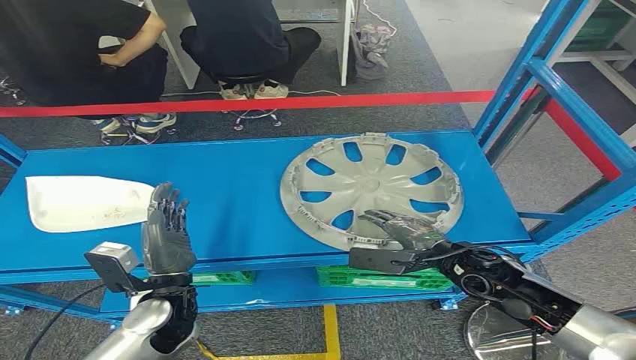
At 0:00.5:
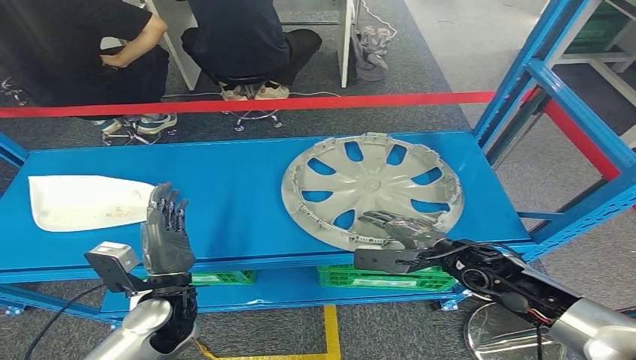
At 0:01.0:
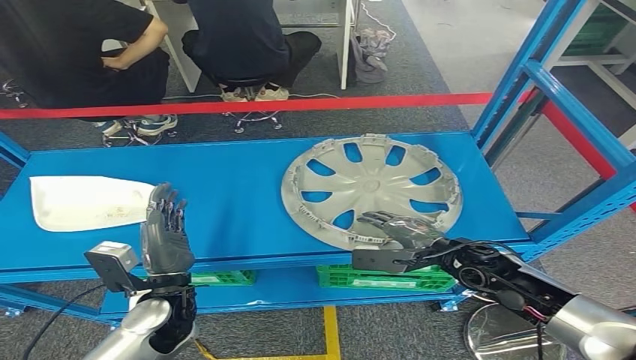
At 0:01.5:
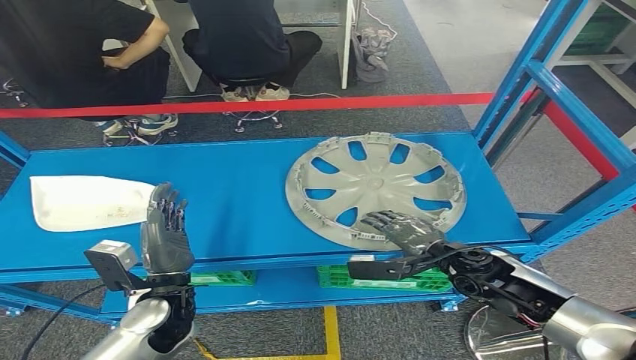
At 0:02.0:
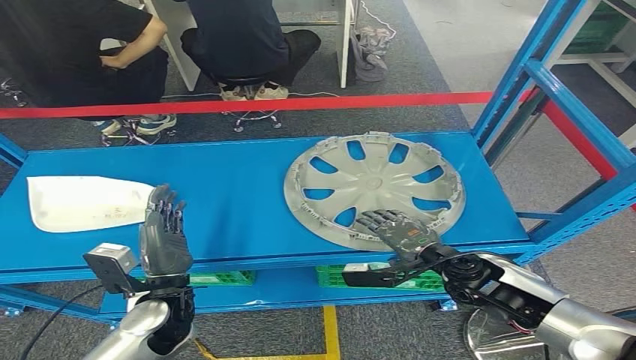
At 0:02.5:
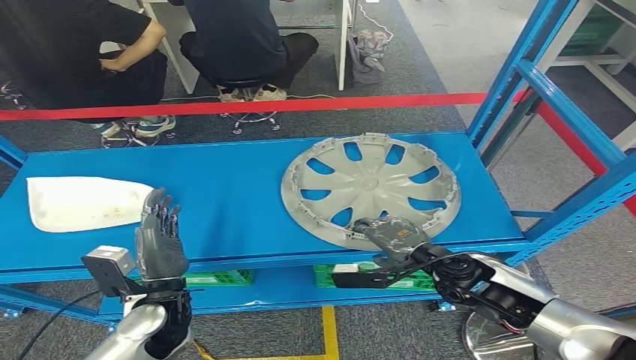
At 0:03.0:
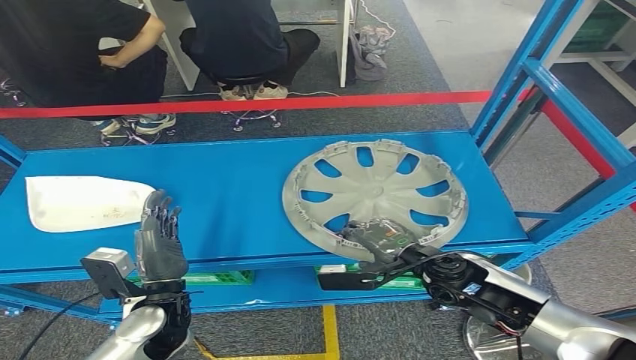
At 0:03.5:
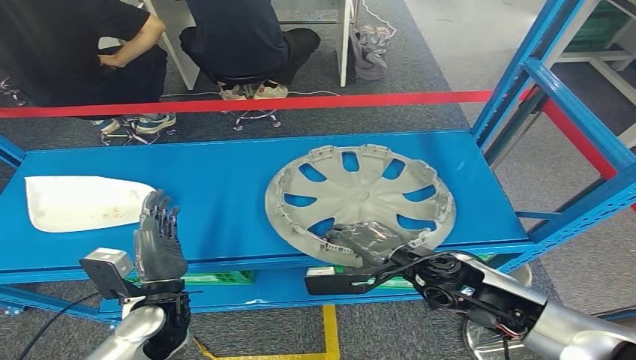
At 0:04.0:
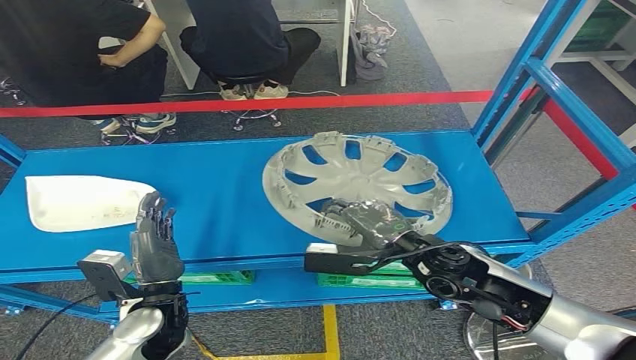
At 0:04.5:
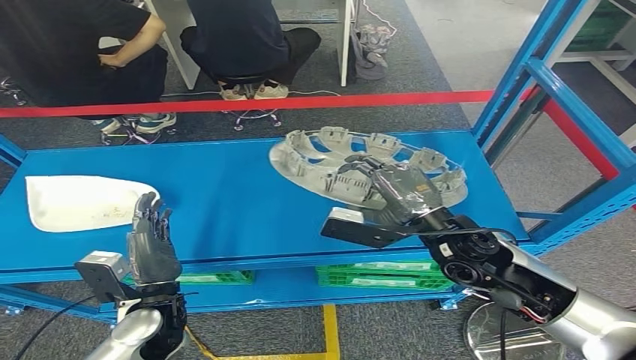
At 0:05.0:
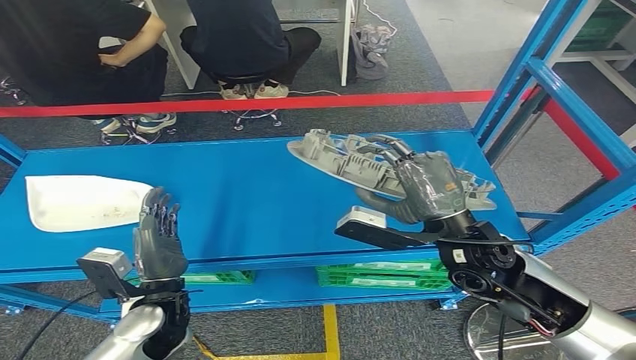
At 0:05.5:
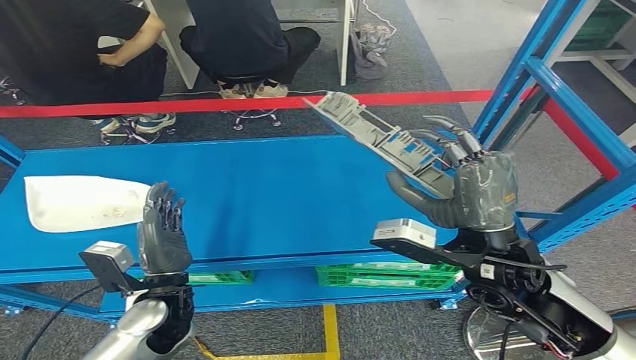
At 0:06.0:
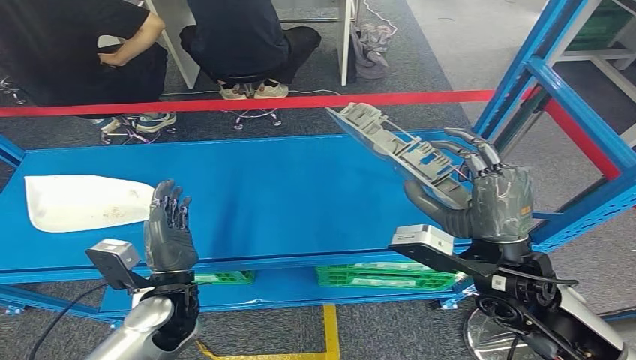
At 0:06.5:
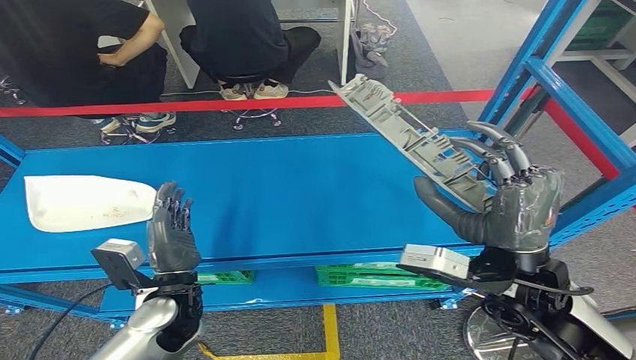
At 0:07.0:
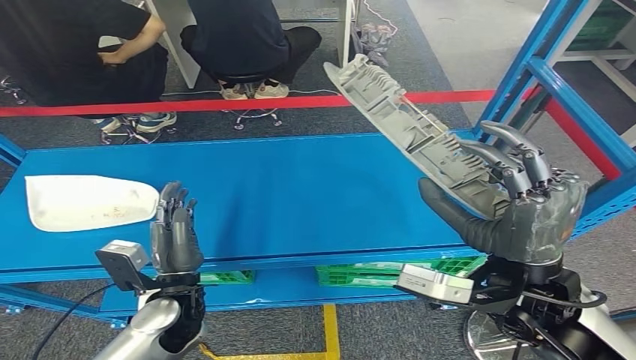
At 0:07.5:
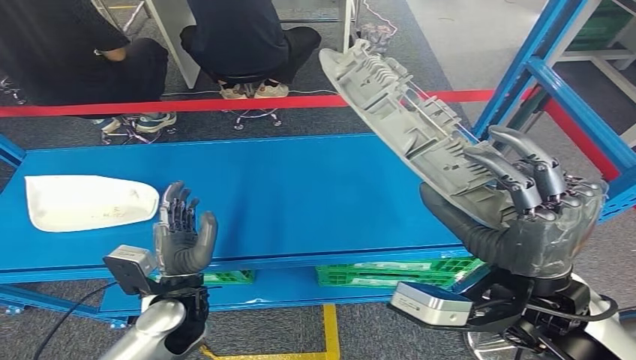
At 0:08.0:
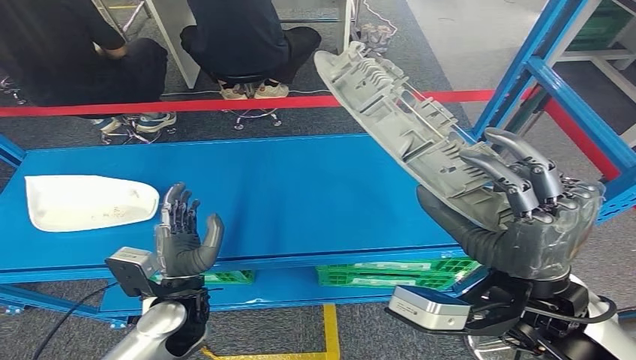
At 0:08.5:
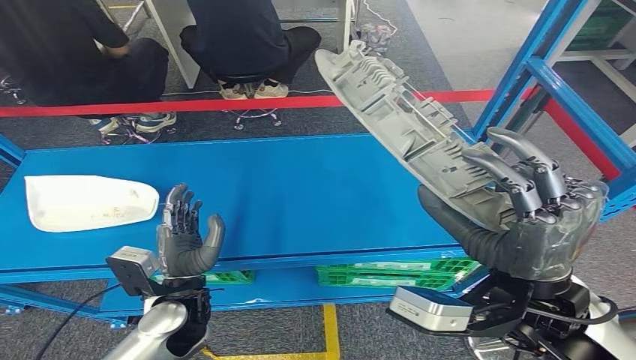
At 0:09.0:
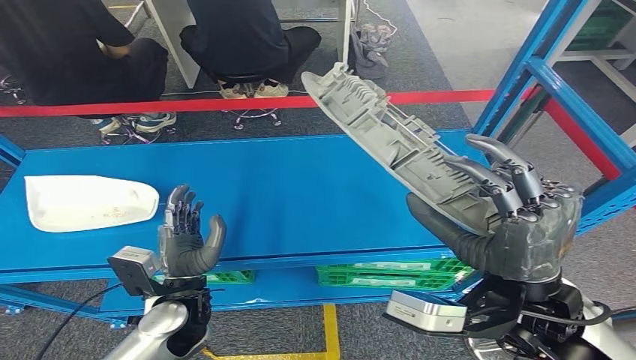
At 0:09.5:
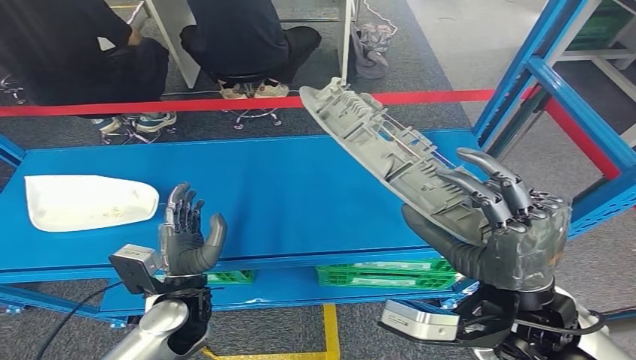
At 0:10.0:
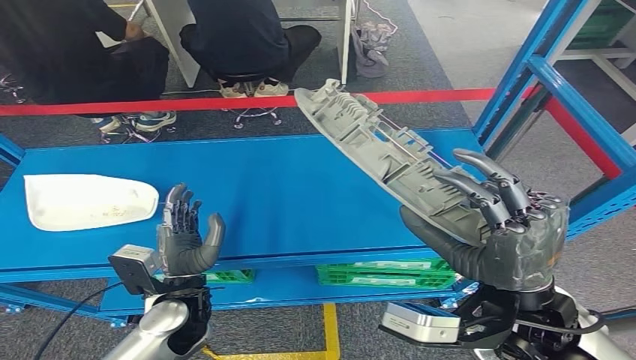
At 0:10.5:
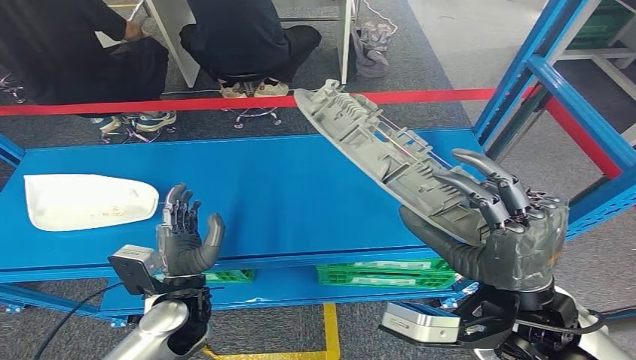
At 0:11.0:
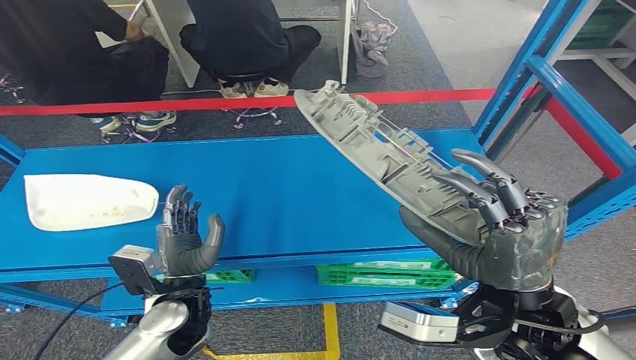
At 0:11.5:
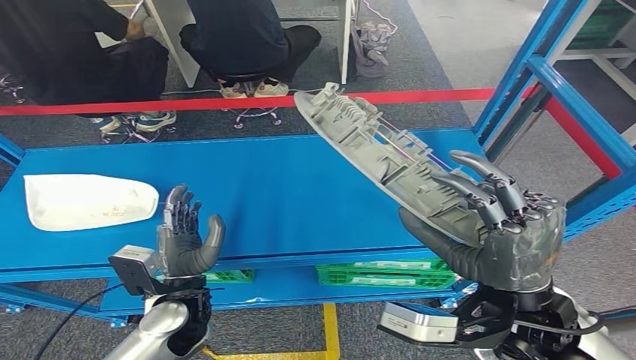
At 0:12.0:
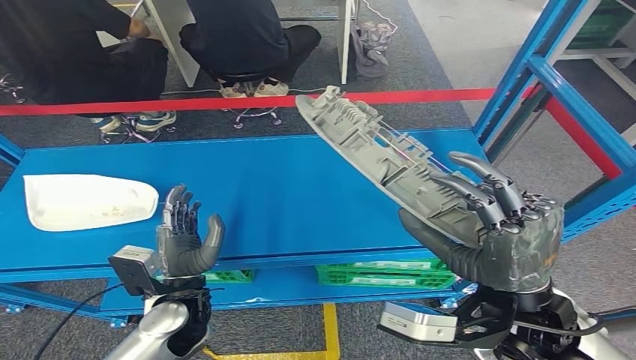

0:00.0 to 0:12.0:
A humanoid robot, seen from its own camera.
Step, 0:00.0 to 0:09.0: Pick up the small parts from the shelf.
0:02.0 to 0:04.0: The right hand heads upward and to the left, covering about 10 cm.
0:08.0 to 0:10.0: The hands move only a little.
0:10.0 to 0:12.0: Both hands stay put.

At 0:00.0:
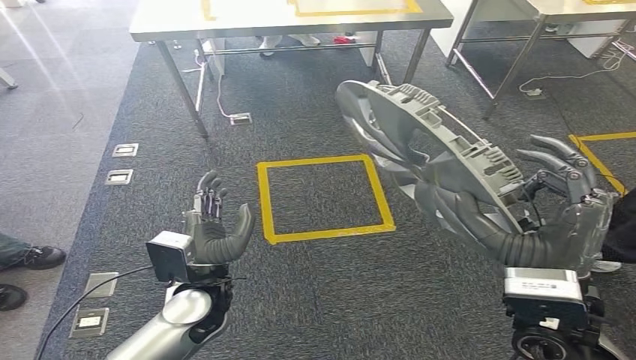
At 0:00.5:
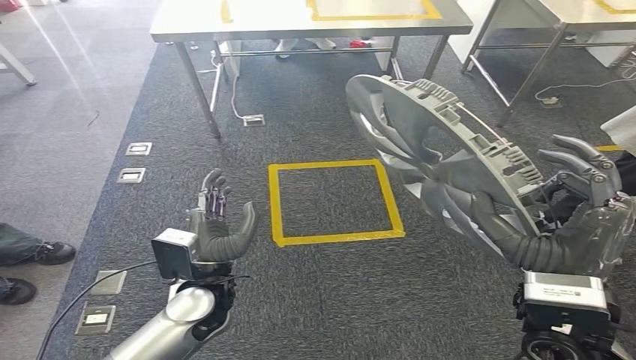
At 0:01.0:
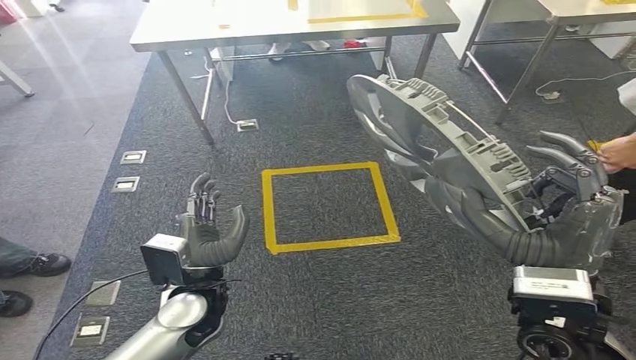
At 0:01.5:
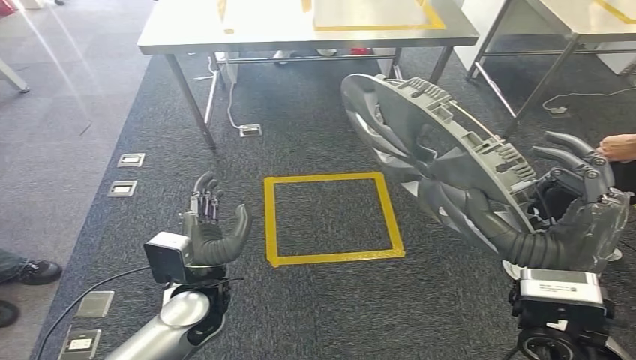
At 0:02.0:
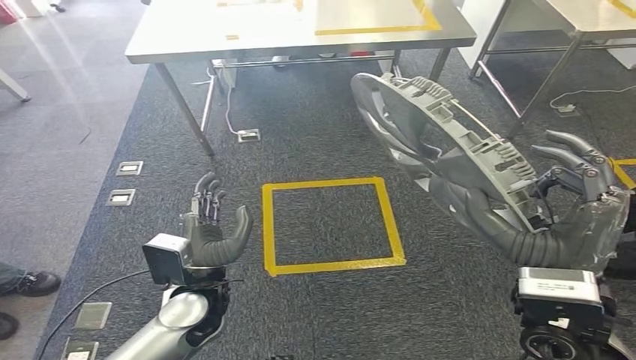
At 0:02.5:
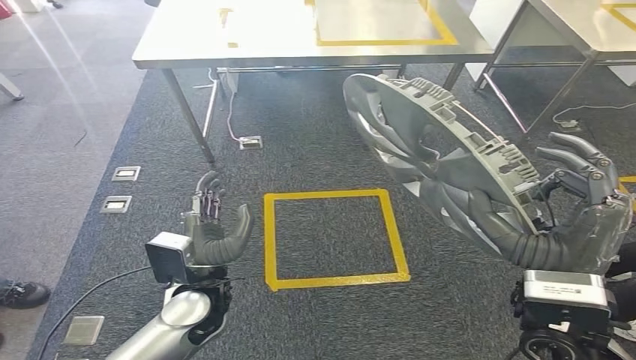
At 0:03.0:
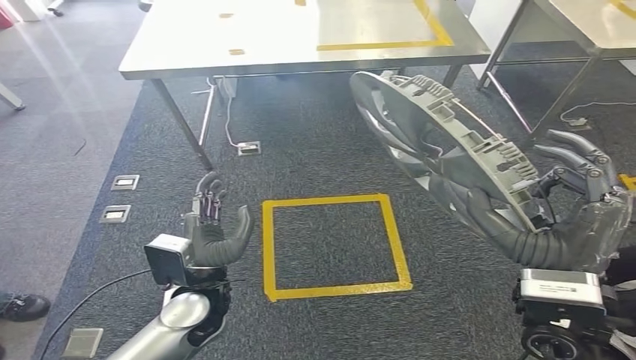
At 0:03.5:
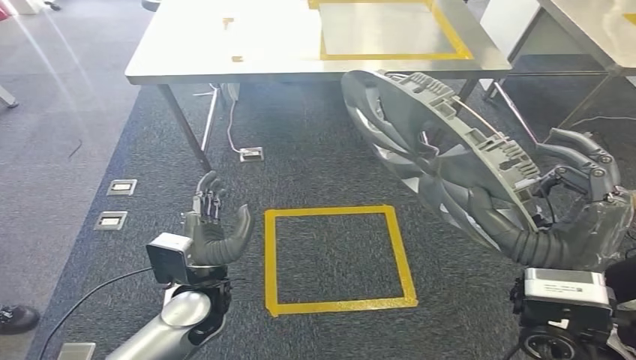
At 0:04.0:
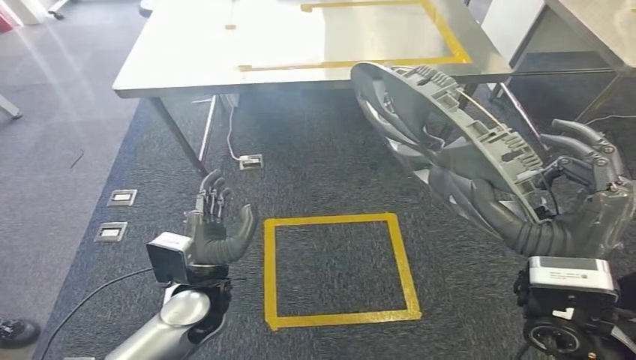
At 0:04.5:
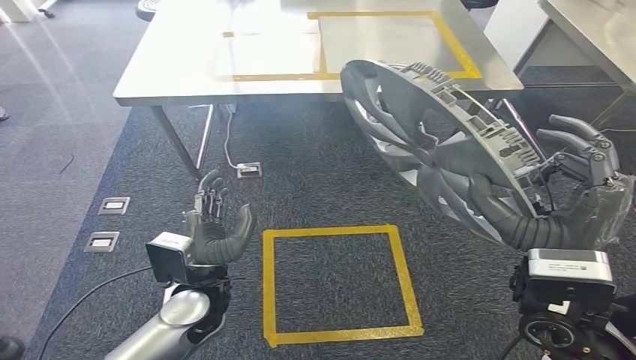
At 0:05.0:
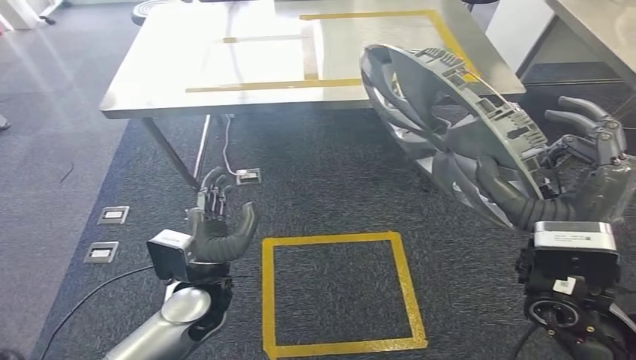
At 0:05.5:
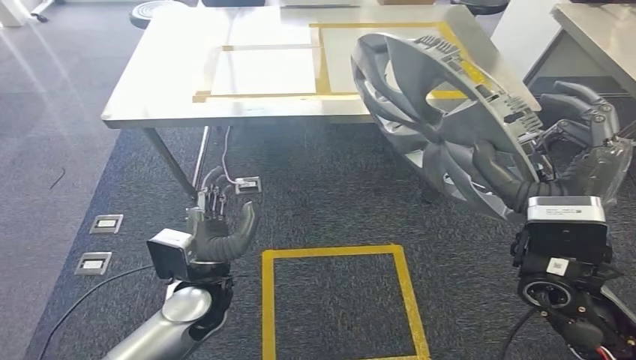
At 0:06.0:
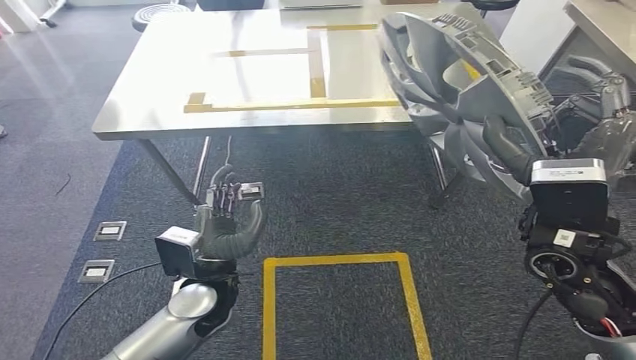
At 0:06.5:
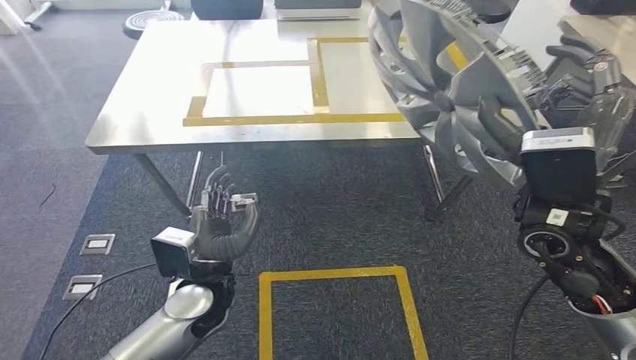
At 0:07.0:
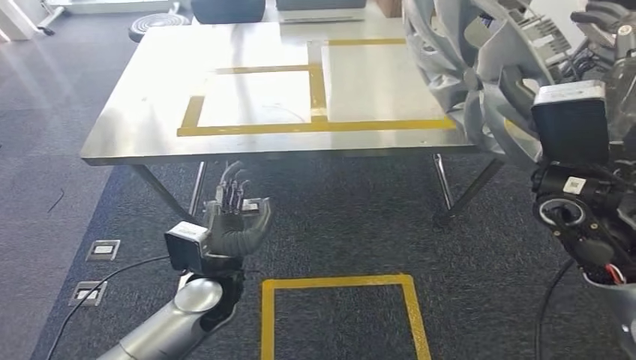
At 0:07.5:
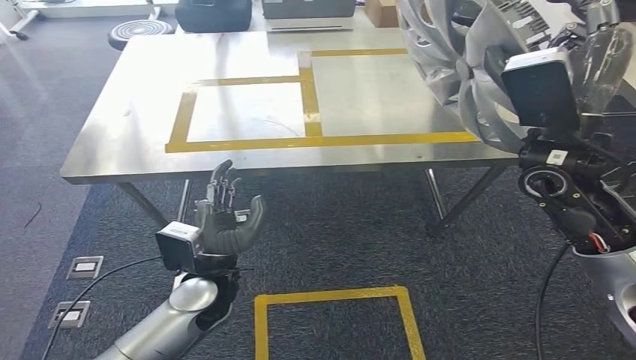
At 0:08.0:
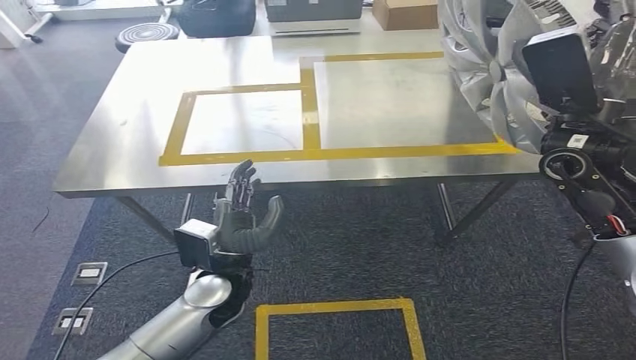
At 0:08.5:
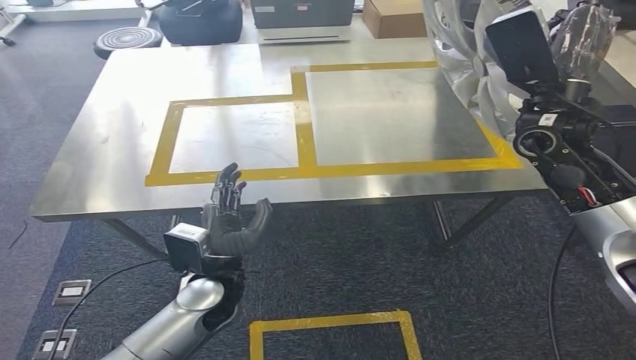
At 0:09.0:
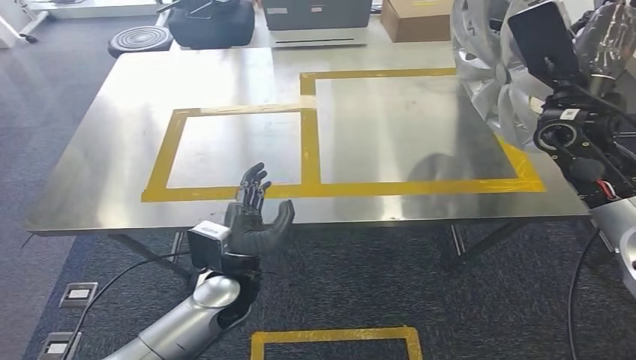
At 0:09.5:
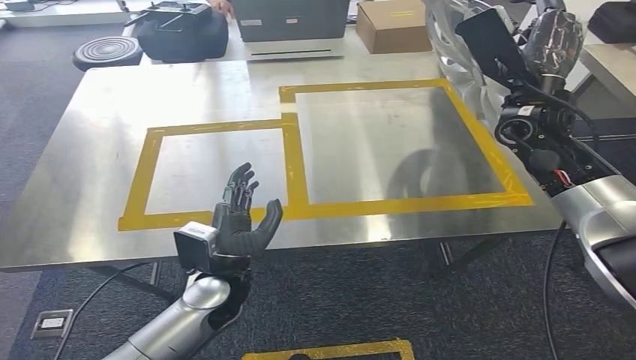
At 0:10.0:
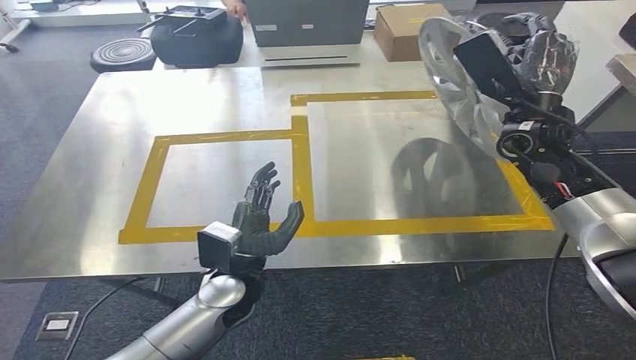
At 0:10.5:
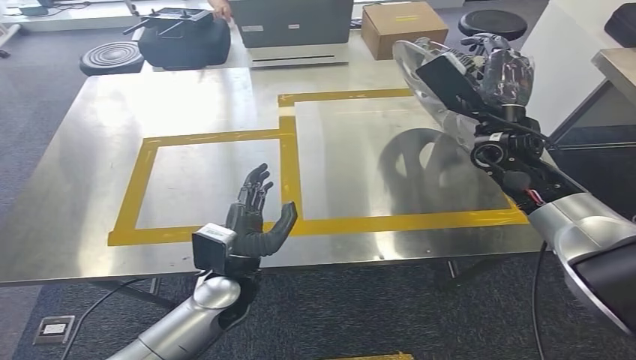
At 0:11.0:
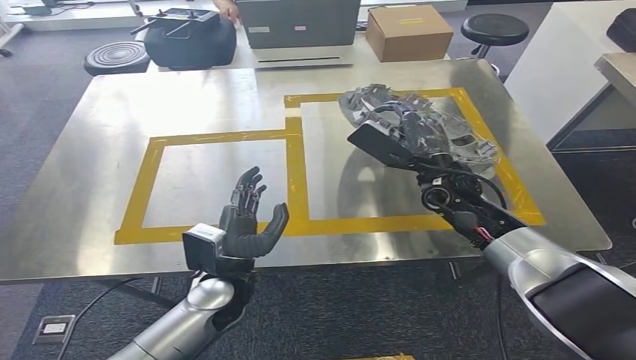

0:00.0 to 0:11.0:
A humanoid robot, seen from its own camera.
Step, 0:00.0 to 0:08.5: Move the small parts to the workbench.
